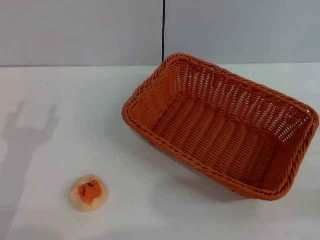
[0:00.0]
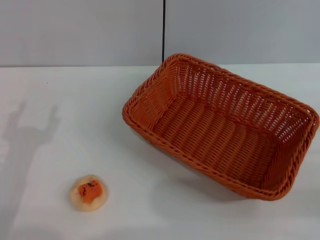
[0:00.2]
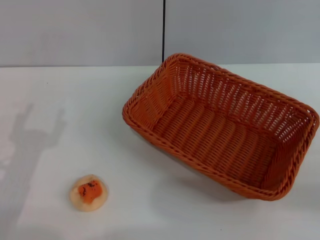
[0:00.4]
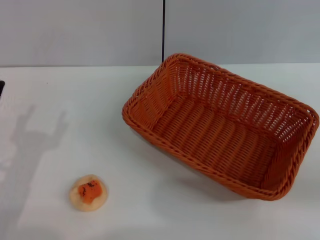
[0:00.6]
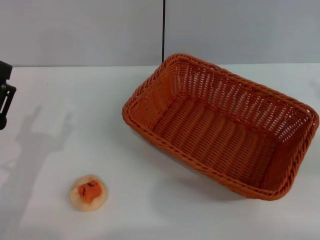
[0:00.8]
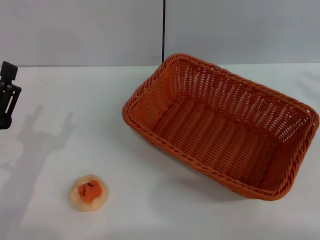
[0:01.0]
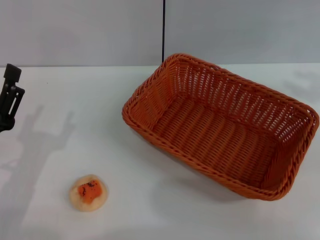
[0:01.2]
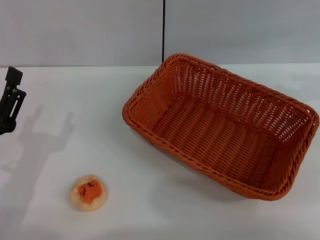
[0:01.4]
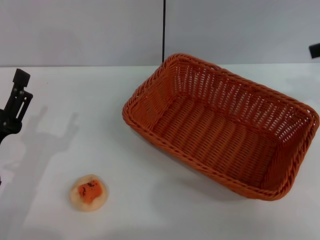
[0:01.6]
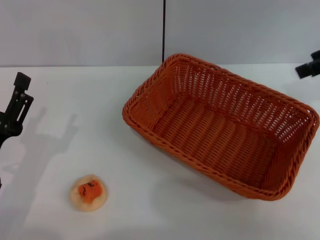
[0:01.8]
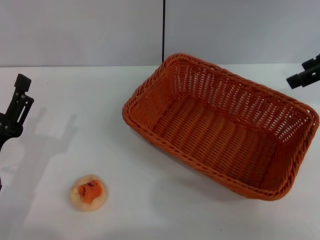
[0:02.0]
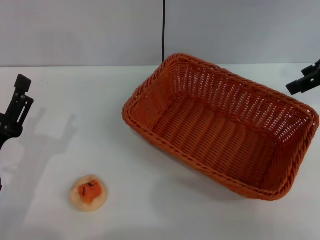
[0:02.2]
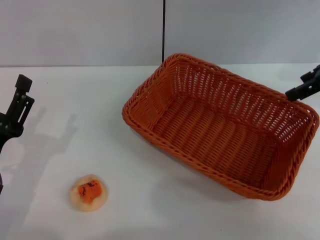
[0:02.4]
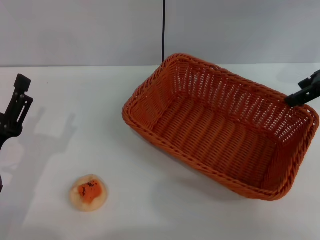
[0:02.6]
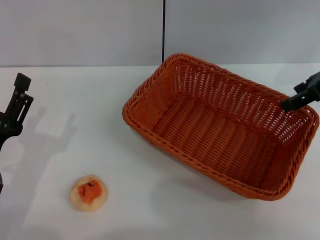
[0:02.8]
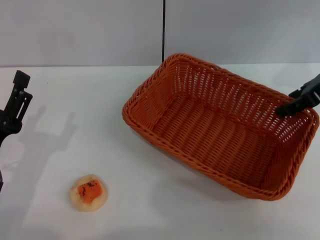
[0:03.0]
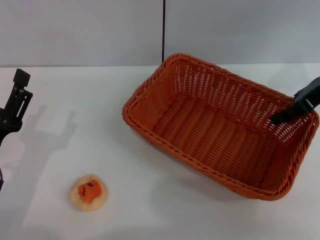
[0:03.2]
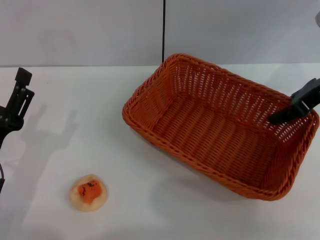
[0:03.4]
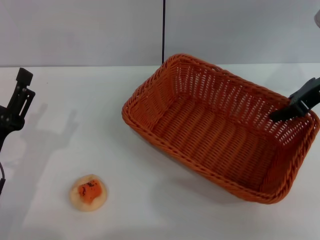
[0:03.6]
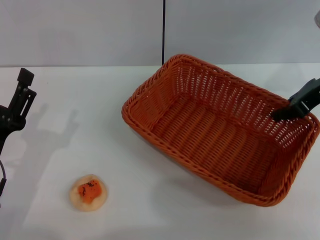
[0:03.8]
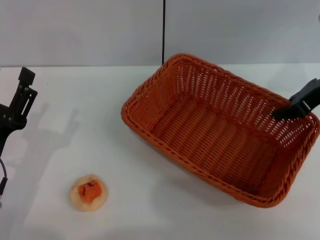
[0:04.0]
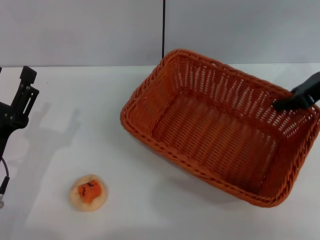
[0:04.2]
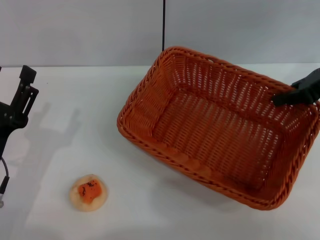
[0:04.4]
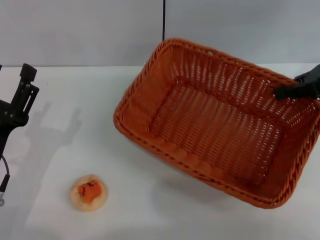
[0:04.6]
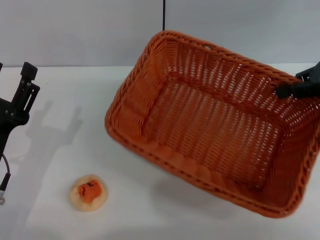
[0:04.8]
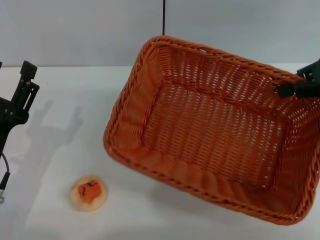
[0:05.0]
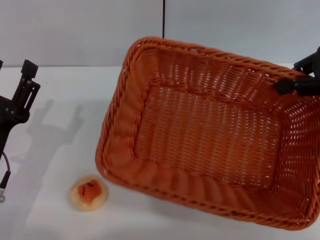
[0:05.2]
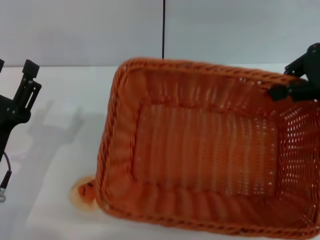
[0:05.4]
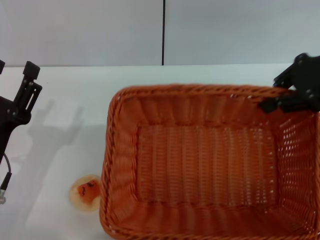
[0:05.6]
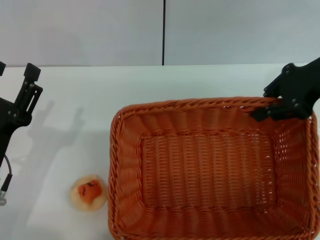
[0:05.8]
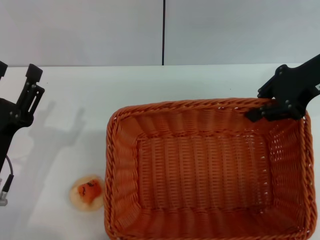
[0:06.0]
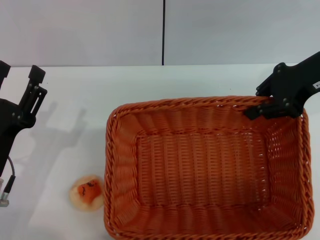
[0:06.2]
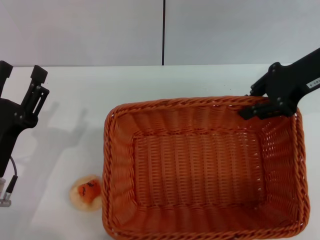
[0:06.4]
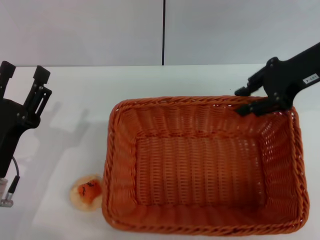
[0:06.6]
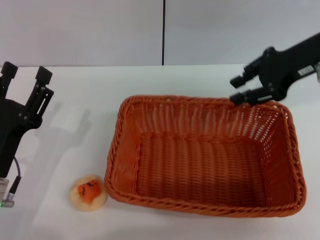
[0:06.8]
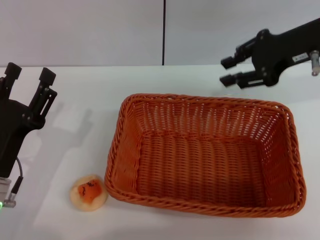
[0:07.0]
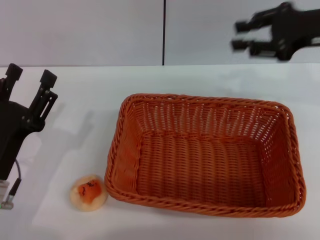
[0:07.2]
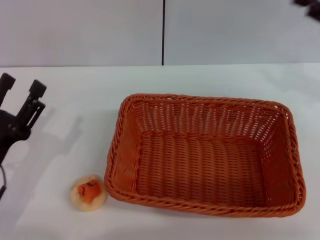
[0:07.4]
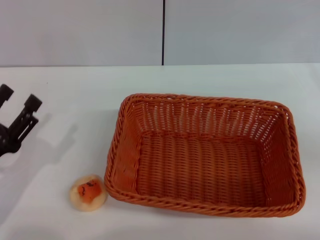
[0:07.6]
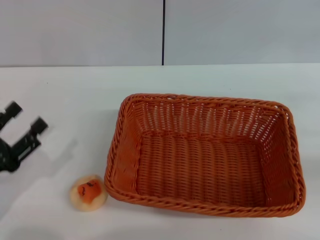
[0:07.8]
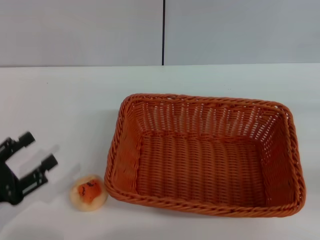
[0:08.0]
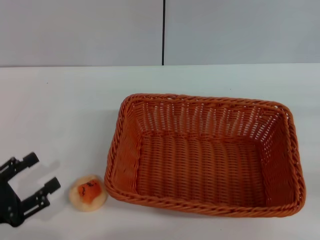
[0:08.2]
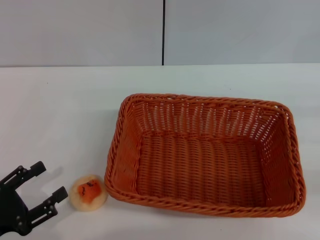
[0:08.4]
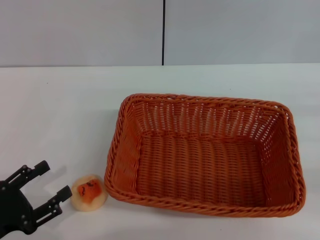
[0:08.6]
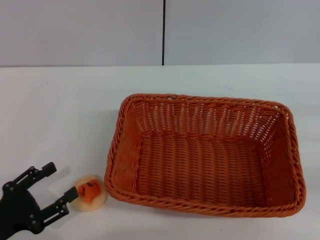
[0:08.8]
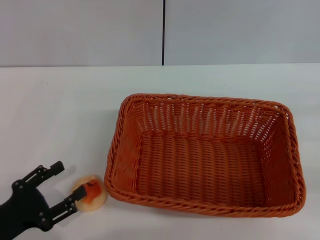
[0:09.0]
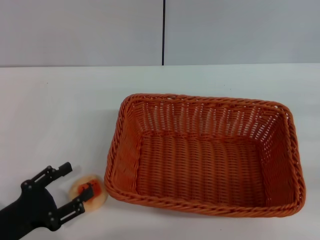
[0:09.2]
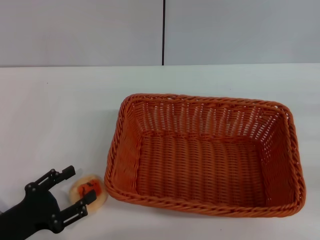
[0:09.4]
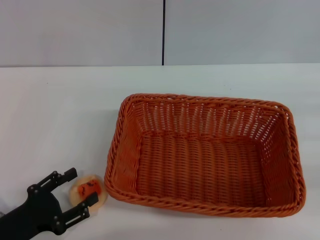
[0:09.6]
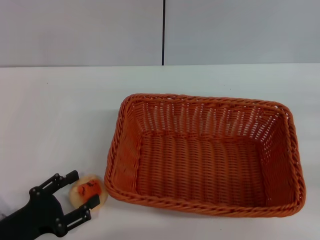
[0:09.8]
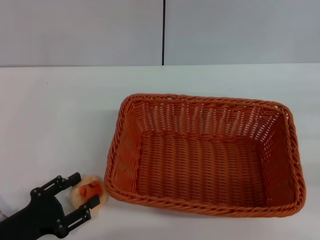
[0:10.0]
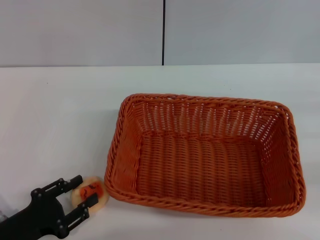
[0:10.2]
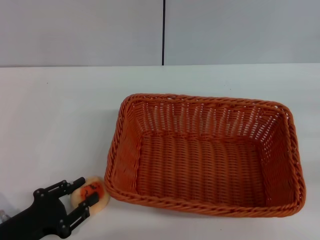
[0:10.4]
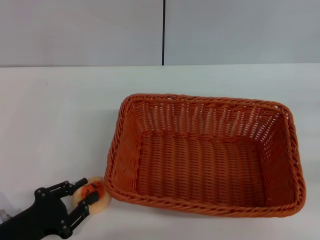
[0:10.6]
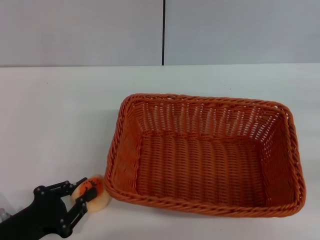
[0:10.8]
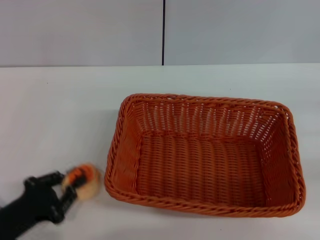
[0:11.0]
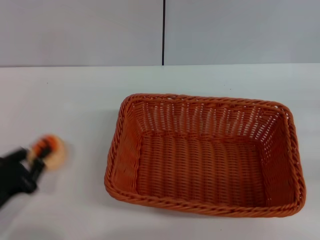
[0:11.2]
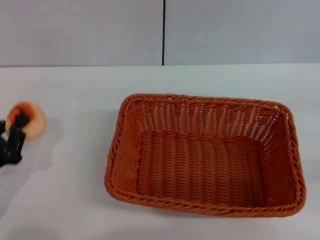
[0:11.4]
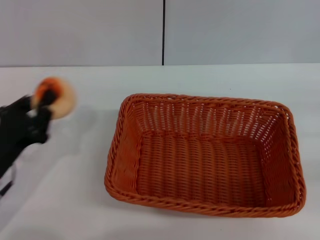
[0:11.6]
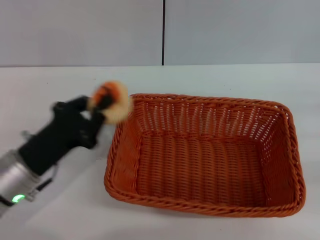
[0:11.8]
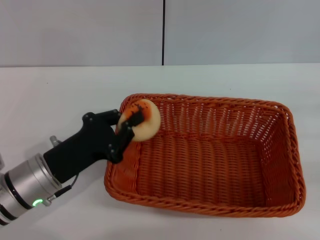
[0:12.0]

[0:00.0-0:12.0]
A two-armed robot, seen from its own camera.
Step, 0:00.0 to 0:06.6: Move the basket to the center of view with the right gripper.
Step, 0:07.0 to 0:11.0: Pick up the egg yolk pastry with the left gripper.
0:00.0 to 0:01.6: The right gripper goes approximately 25 cm upward and forward, and opens its fingers.
0:01.6 to 0:03.0: The right gripper moves downward and to the left, roughly 10 cm.
0:03.0 to 0:04.4: The right gripper closes its fingers.
0:04.4 to 0:06.0: The right gripper goes about 5 cm to the left.
0:06.0 to 0:07.6: The left gripper ends up approximately 5 cm from where it was, while the right gripper is displaced to the right, backward and downward by some 20 cm, and opens up.
0:09.0 to 0:10.4: The left gripper closes.
0:10.4 to 0:12.0: The left gripper is displaced forward and to the right by some 10 cm, and closes.

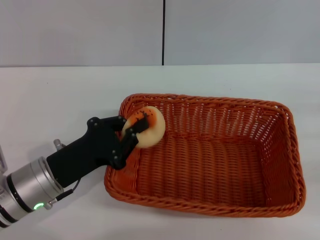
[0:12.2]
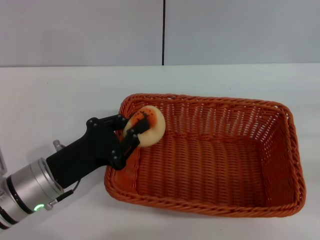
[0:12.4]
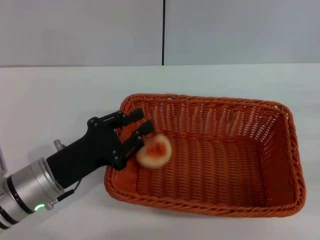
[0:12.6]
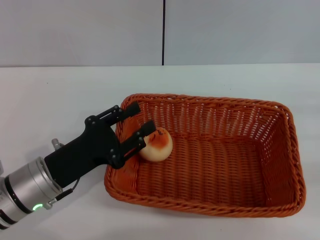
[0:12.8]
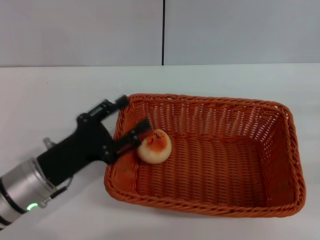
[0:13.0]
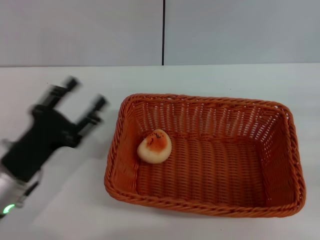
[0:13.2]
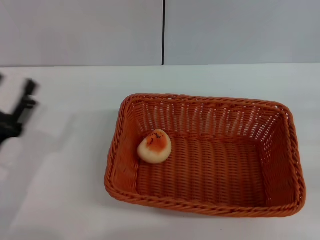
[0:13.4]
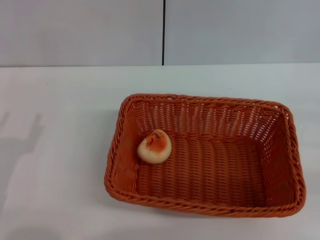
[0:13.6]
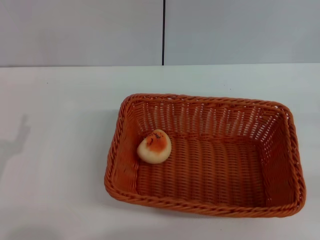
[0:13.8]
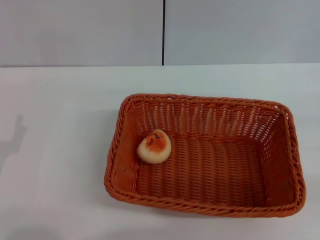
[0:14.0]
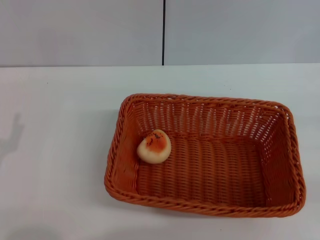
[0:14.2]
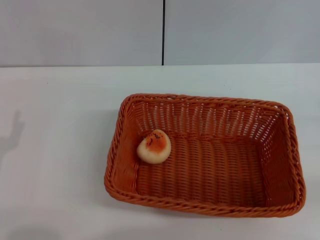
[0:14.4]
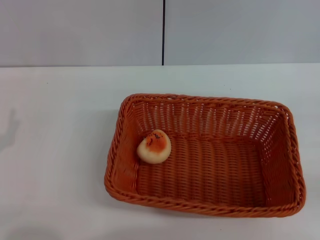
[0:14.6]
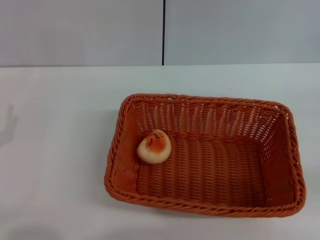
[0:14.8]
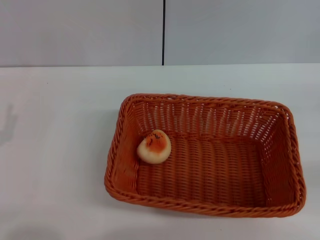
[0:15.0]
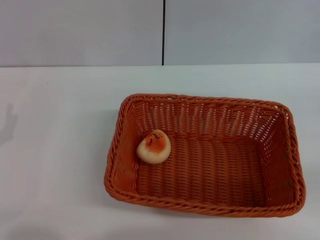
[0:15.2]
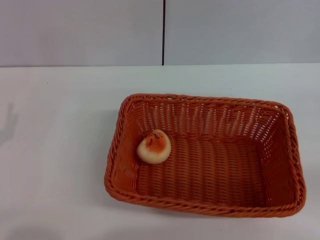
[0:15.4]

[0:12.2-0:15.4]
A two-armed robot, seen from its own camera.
0:12.2 to 0:13.8: The left gripper goes some 10 cm to the left and backward, and opens.

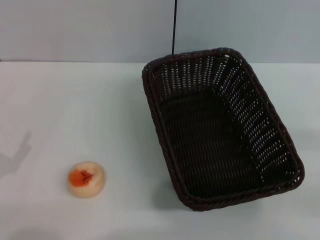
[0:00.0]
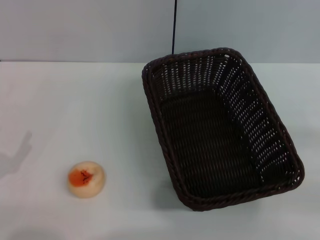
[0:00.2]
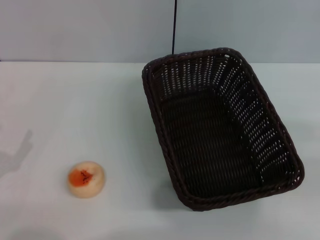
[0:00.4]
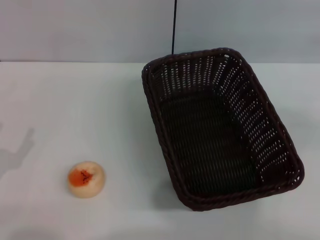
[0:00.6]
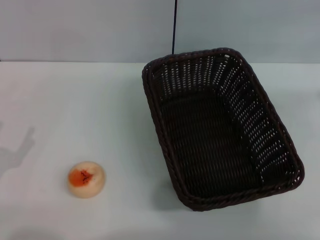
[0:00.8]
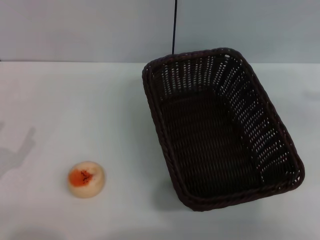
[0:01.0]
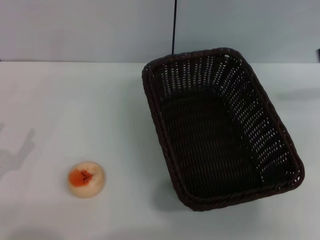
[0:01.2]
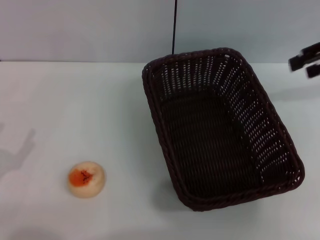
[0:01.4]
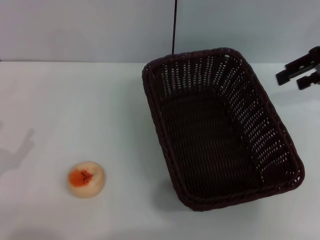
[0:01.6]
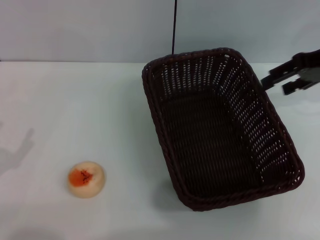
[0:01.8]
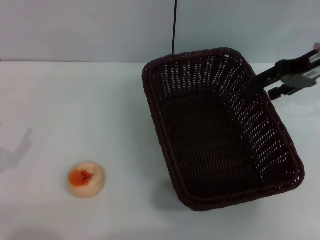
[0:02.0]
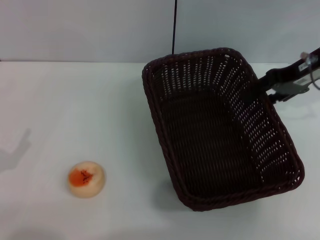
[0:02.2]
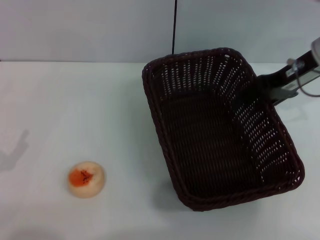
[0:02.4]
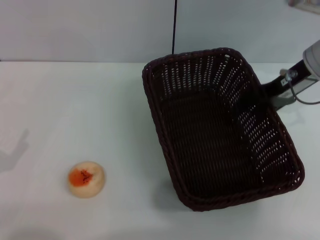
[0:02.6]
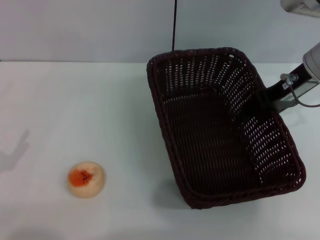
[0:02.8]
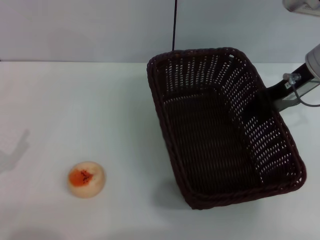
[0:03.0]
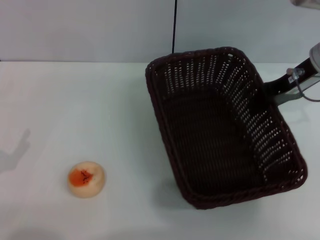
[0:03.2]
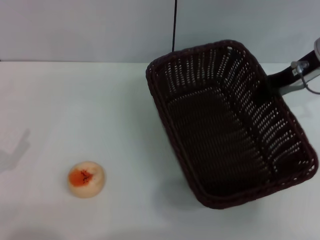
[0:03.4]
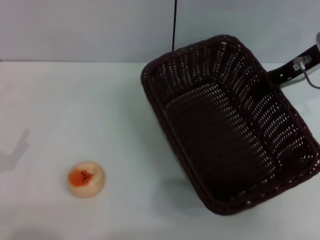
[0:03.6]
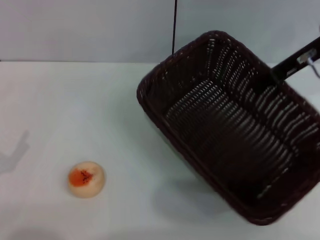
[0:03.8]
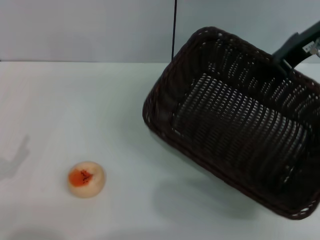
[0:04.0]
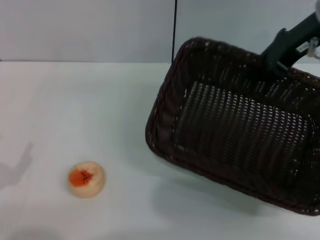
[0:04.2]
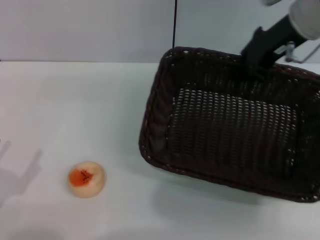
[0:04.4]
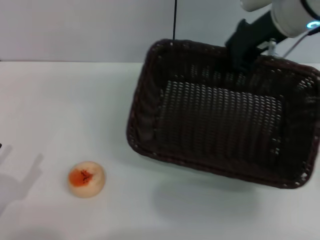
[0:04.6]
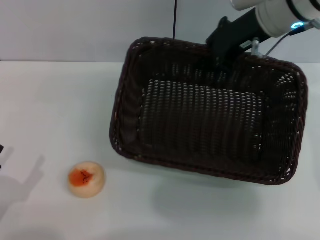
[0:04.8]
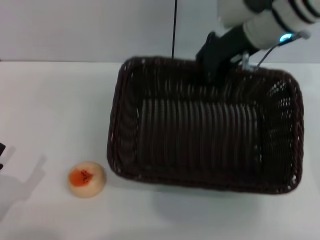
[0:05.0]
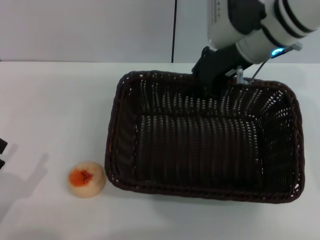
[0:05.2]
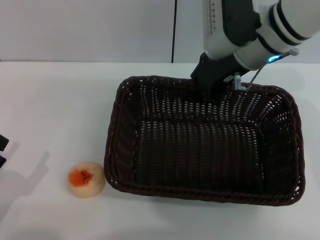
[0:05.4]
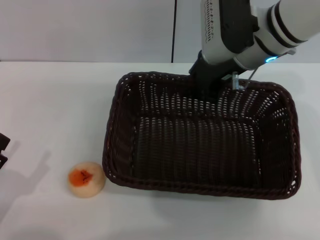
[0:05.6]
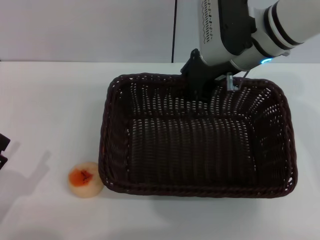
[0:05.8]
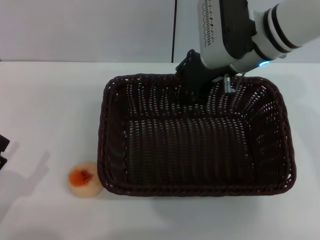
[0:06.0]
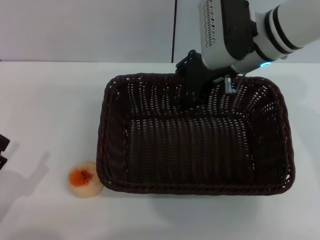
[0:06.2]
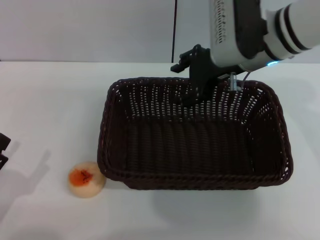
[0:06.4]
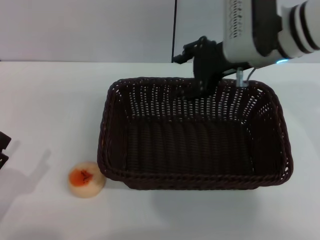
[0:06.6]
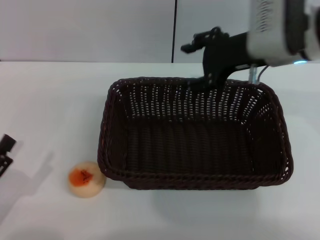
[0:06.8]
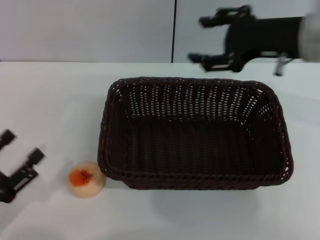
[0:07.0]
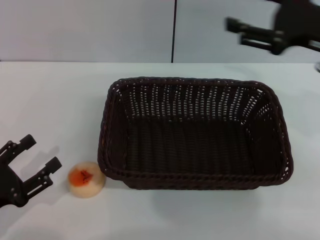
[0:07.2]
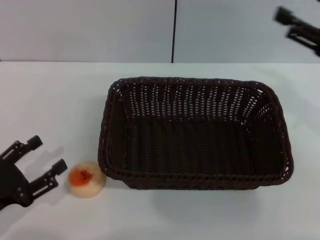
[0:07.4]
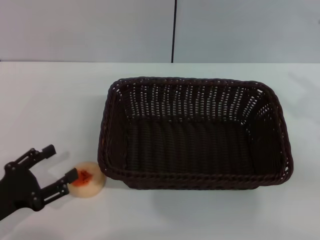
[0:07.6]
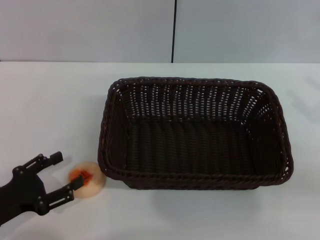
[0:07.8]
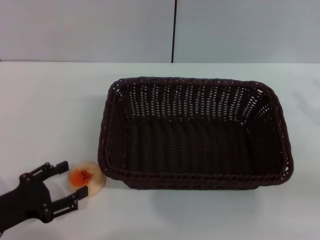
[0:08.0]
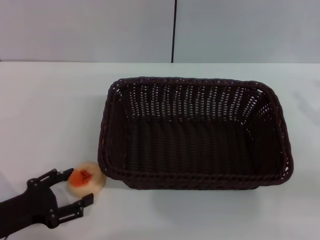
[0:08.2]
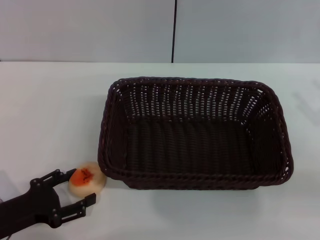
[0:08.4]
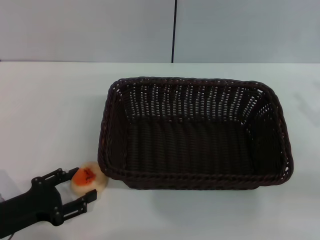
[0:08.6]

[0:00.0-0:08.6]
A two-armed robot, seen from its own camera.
Step, 0:00.0 to 0:07.0: Move the basket to the center of view with the right gripper.
0:00.0 to 0:01.4: The right gripper heads forward, upward and to the left, covering some 25 cm.
0:01.4 to 0:02.8: The right gripper shifts approximately 15 cm to the left and downward.
0:02.8 to 0:04.4: The right gripper is displaced upward by approximately 5 cm, and closes.
0:04.4 to 0:05.8: The right gripper goes about 10 cm to the left and downward.
0:05.8 to 0:07.2: The right gripper goes about 15 cm to the right and backward, and opens its fingers.
0:07.2 to 0:08.6: The right gripper goes about 15 cm to the right, downward and backward.
